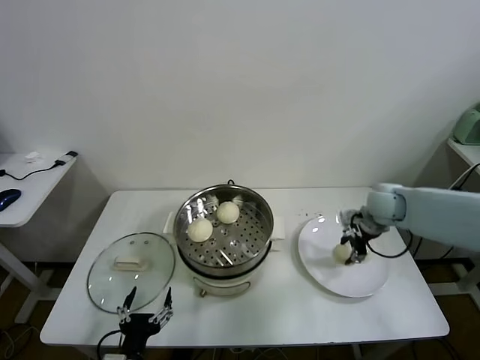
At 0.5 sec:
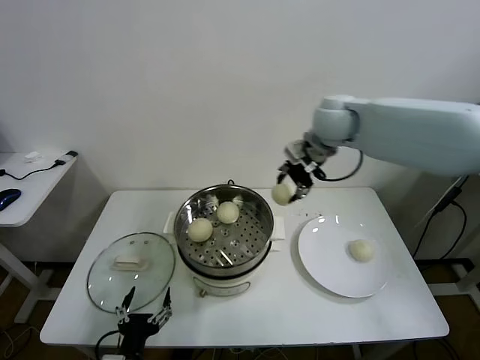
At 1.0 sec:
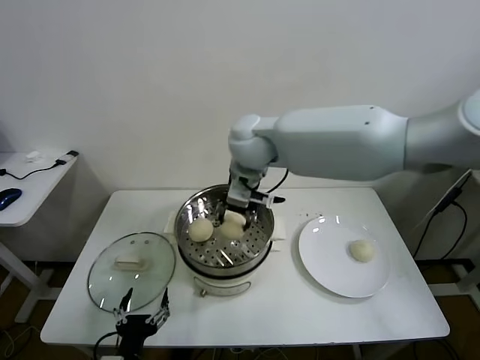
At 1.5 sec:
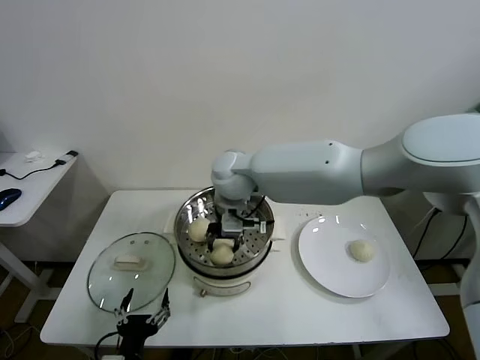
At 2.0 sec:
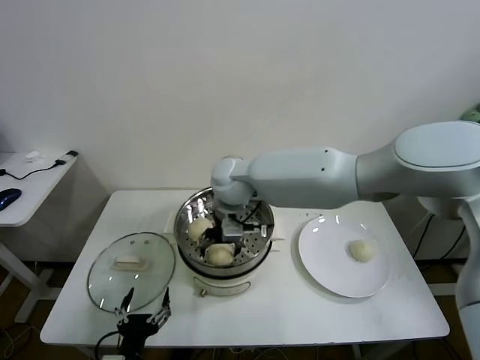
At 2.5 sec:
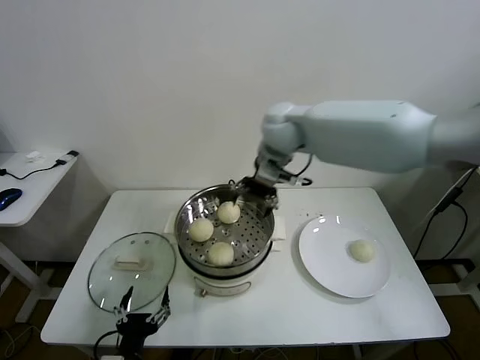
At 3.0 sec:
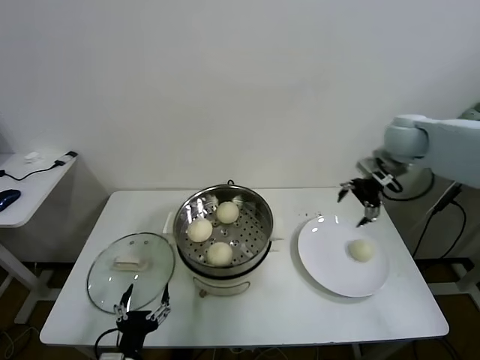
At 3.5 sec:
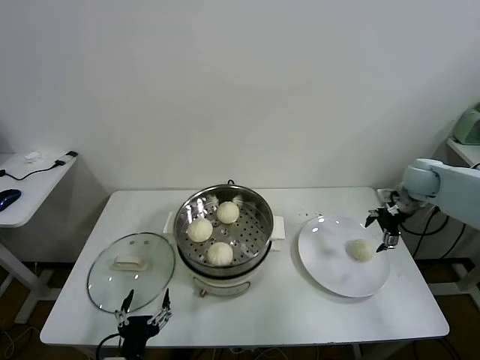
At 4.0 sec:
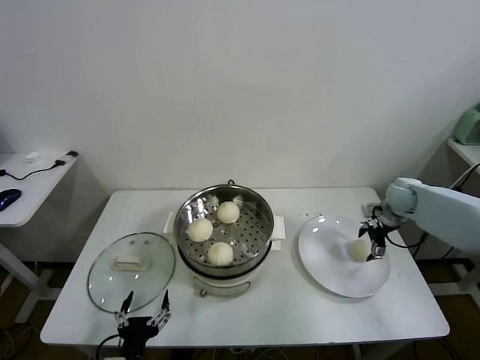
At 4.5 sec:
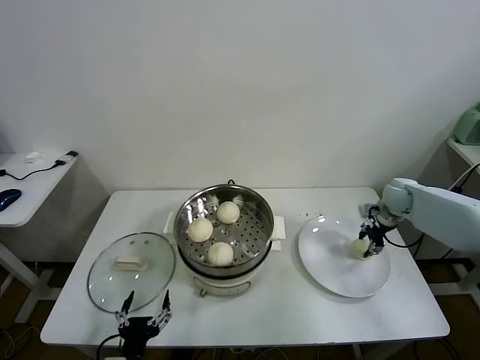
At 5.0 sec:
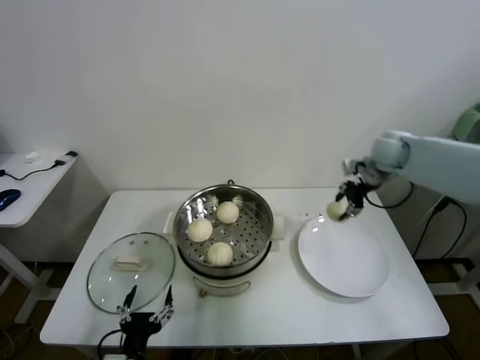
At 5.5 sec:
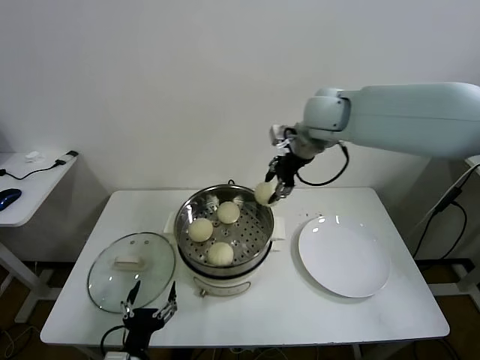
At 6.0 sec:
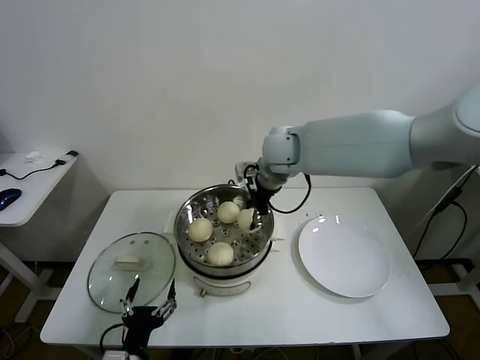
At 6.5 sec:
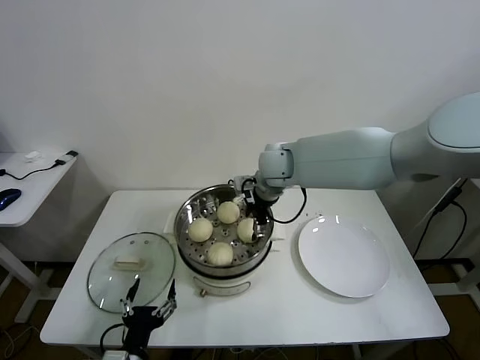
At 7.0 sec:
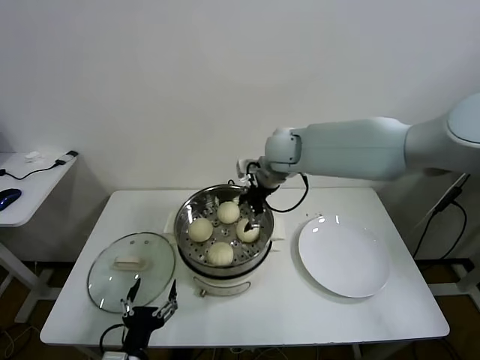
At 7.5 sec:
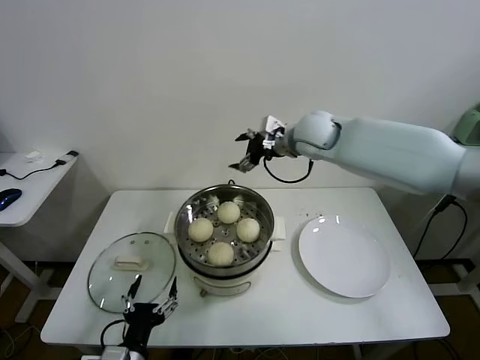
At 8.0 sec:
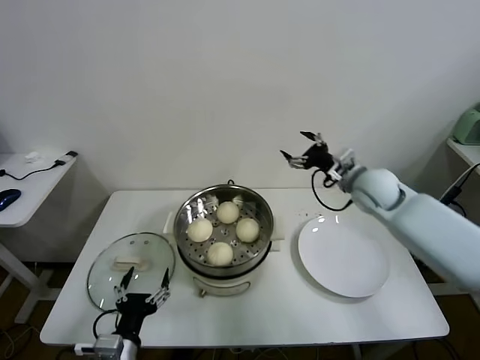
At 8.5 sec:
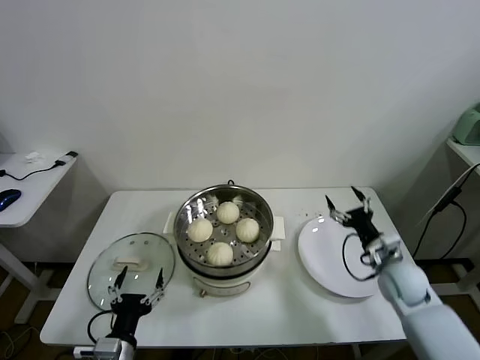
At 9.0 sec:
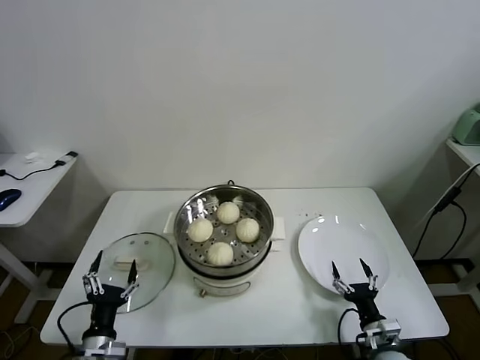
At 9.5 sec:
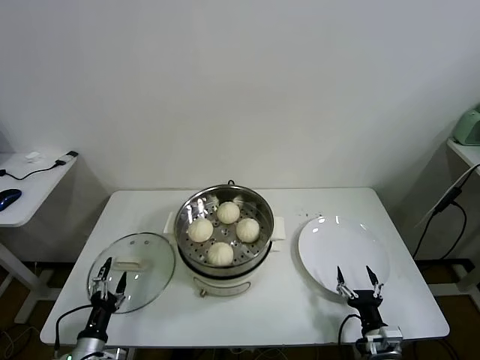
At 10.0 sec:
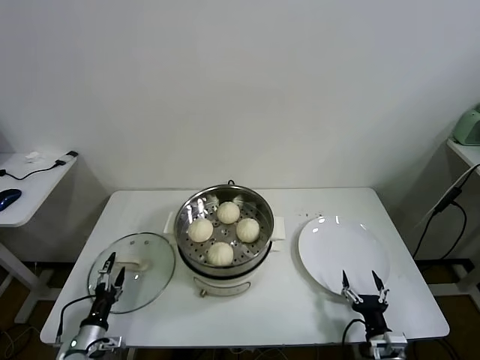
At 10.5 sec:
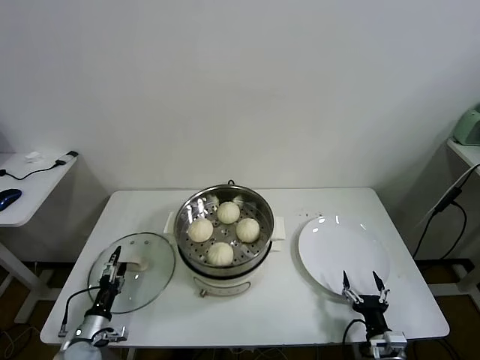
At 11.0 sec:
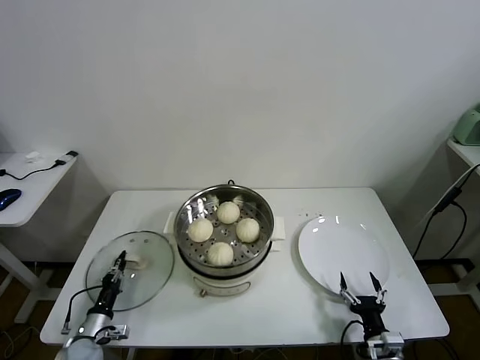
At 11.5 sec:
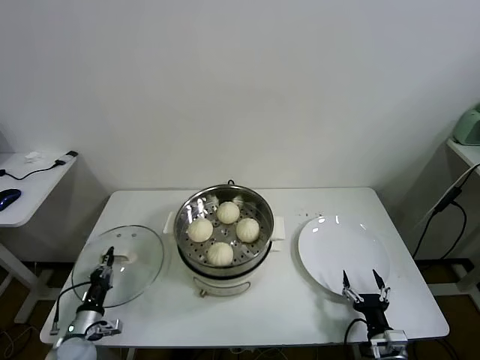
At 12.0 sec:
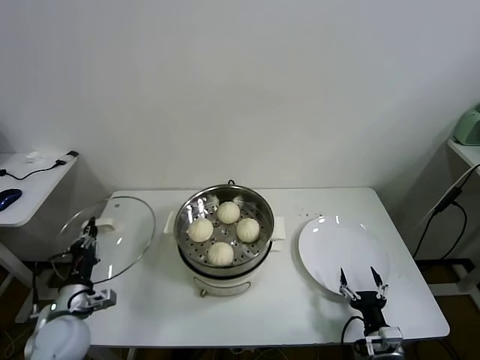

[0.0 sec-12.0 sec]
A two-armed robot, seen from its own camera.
Task of the whole recording: take steamed baozi put them in steamer.
Step, 0.0 sec to 1.5 sec: Place the baozi on the steamer with right gripper.
Step, 2.0 sec to 4.5 sec: Grasp the baozi in the plate with right gripper.
Step, 5.0 sec to 6.5 sec: Place the baozi on the steamer with right gripper.
Step, 7.0 sec to 11.0 sec: Grasp the pot lid with left gripper.
0.0 sec to 2.0 sec: The right gripper travels to the left by some 35 cm, and opens its fingers.
2.0 sec to 4.0 sec: The right gripper heads to the right, covering about 50 cm.
4.0 sec to 6.0 sec: The right gripper moves to the left and upward, roughly 40 cm, and closes up.
6.0 sec to 8.0 sec: The right gripper shifts roughly 20 cm to the right and downward, and opens up.
8.0 sec to 10.0 sec: The right gripper moves backward and downward, some 40 cm. Meanwhile the left gripper heads to the left and downward, covering some 20 cm.
10.0 sec to 12.0 sec: The left gripper heads upward, covering some 15 cm, and closes up.

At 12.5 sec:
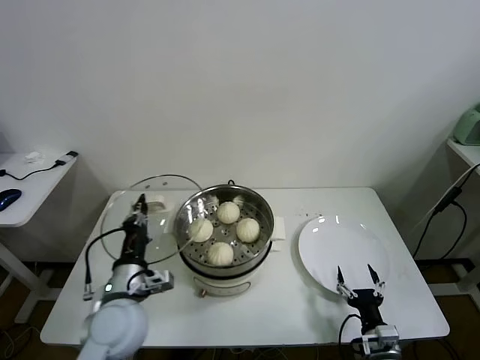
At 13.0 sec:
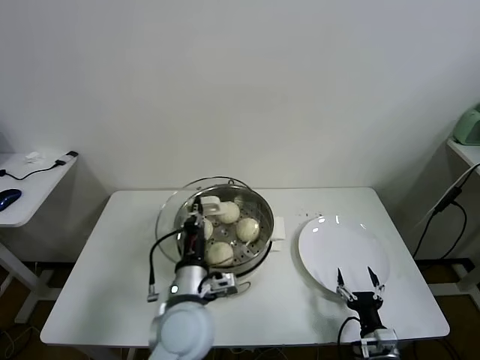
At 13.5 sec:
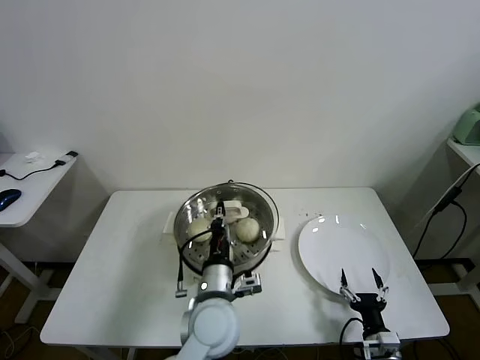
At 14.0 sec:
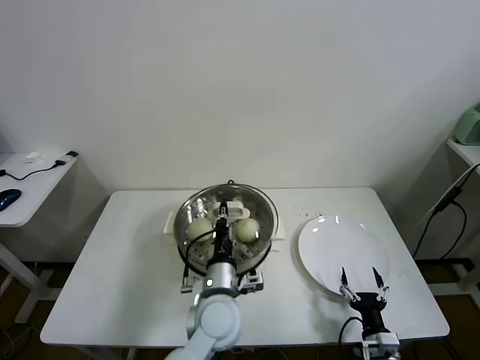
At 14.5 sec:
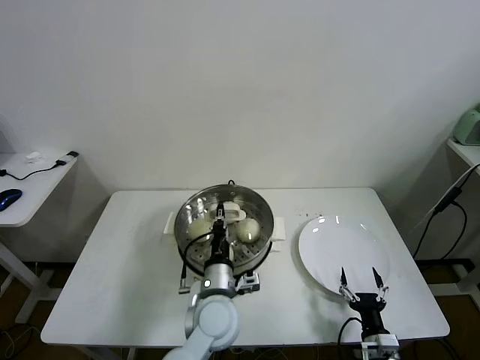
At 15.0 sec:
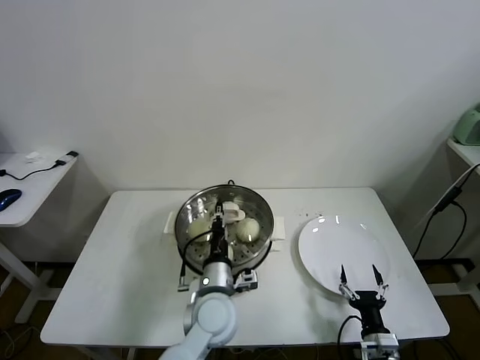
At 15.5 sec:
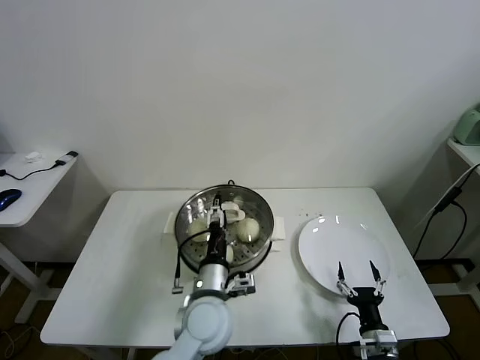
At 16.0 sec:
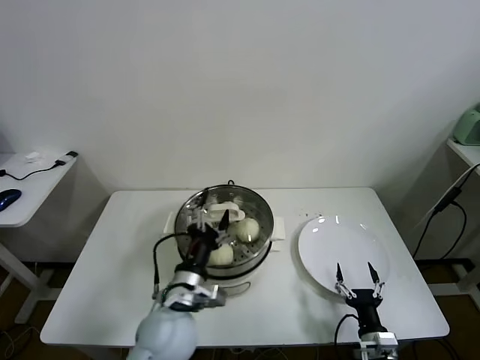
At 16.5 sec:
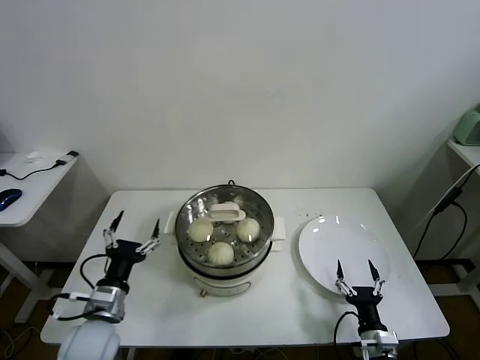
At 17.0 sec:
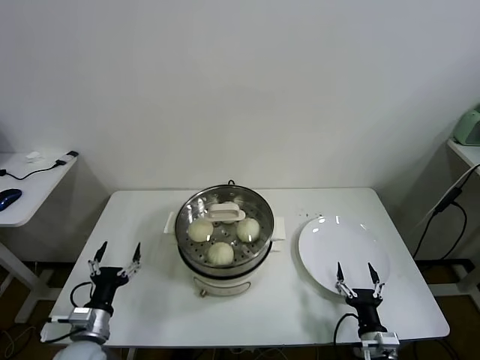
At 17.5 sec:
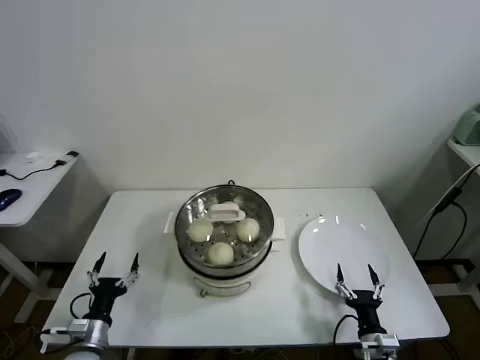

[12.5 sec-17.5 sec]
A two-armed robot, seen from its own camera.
Task of the whole recording: take steamed baozi put them in steamer.
Step, 12.5 sec to 15.0 sec: Place the pot lid on the steamer with left gripper.
12.5 sec to 15.0 sec: The left gripper moves to the right, some 20 cm.
15.0 sec to 17.5 sec: The left gripper moves to the left, about 30 cm, and opens up.
